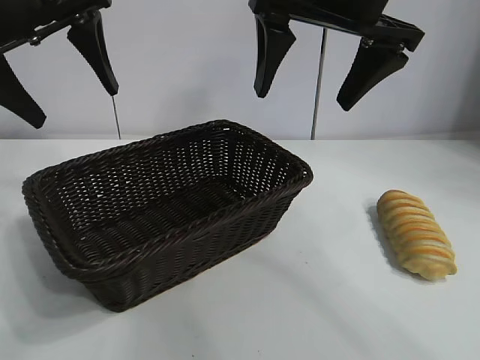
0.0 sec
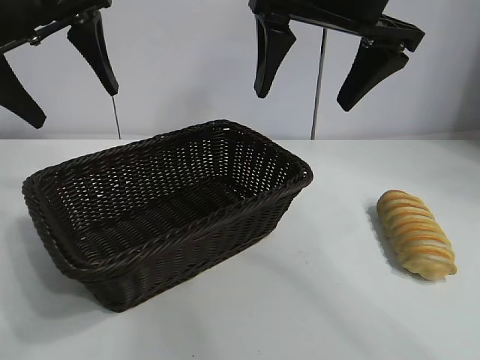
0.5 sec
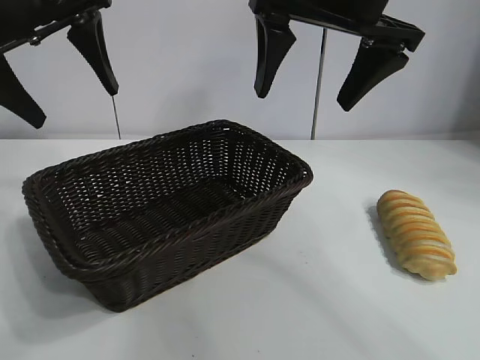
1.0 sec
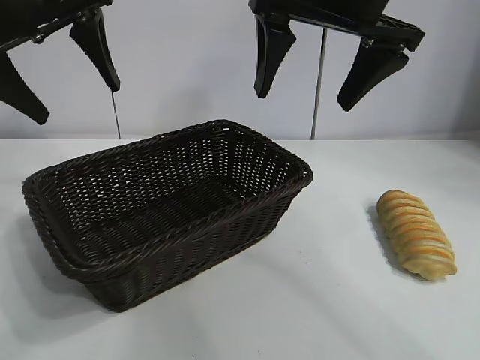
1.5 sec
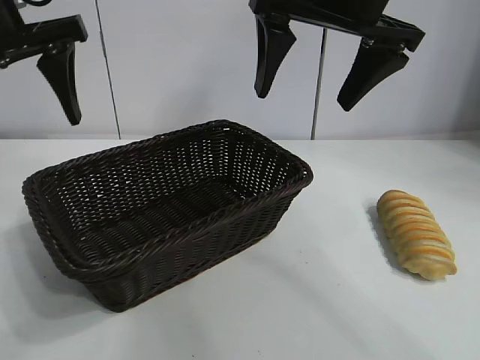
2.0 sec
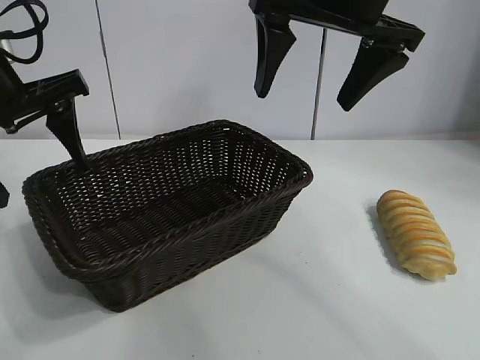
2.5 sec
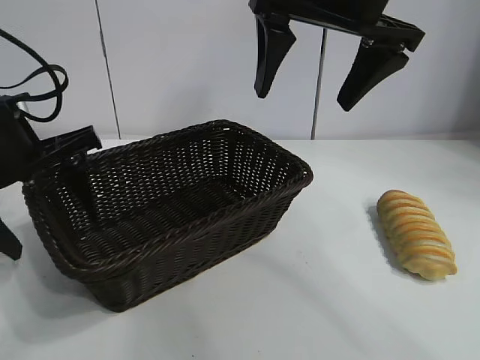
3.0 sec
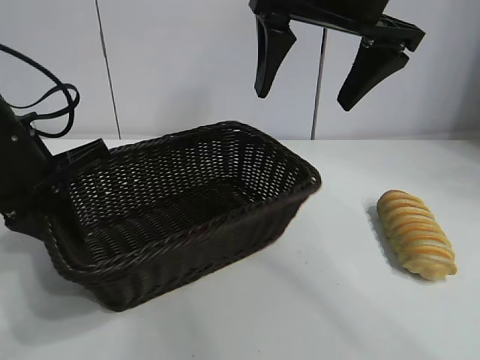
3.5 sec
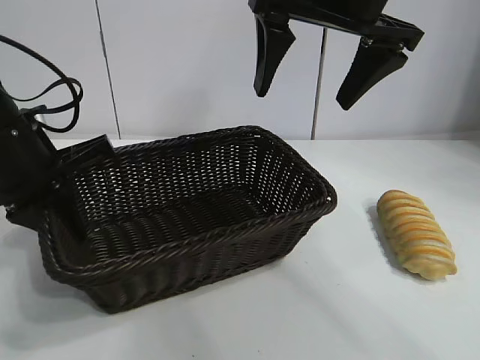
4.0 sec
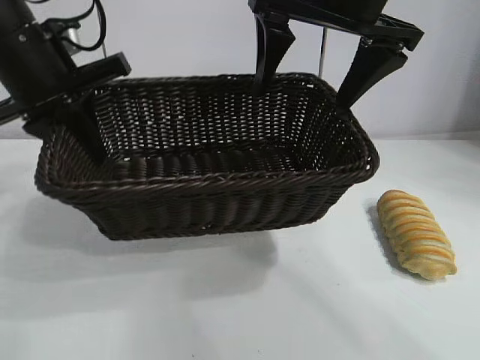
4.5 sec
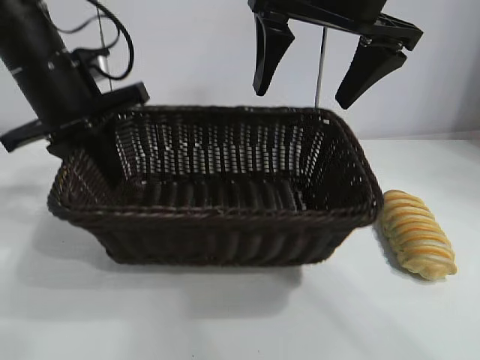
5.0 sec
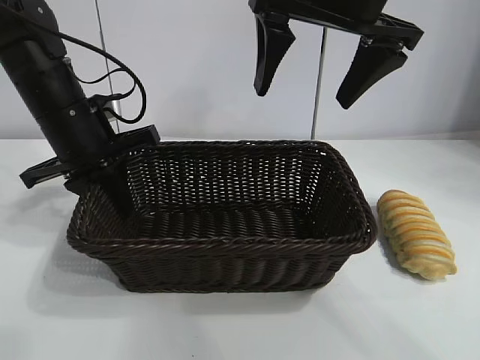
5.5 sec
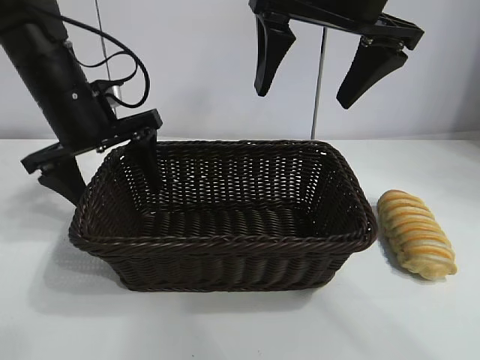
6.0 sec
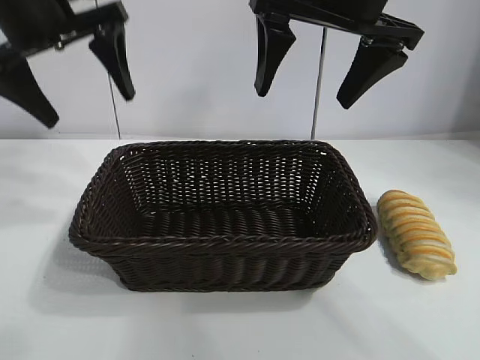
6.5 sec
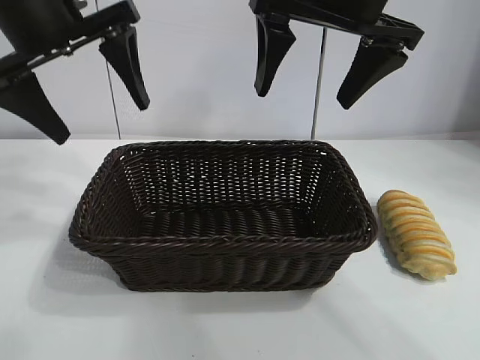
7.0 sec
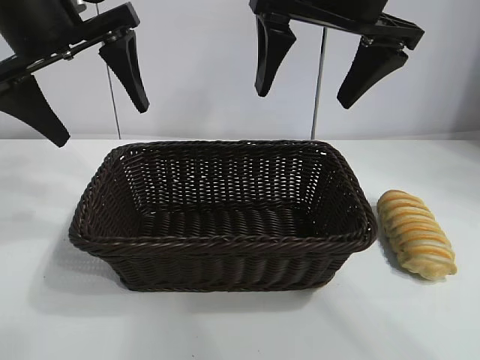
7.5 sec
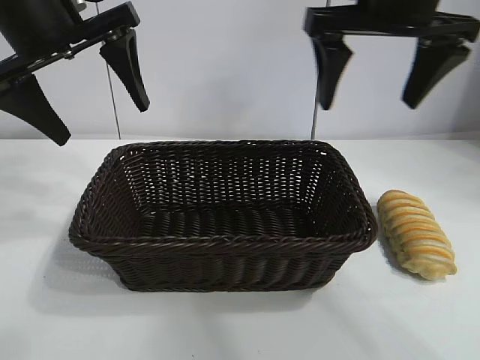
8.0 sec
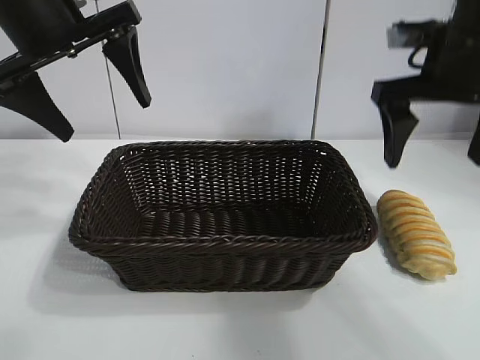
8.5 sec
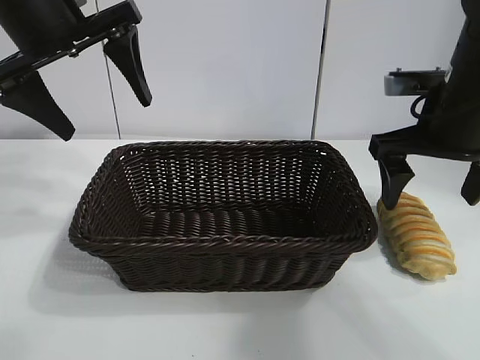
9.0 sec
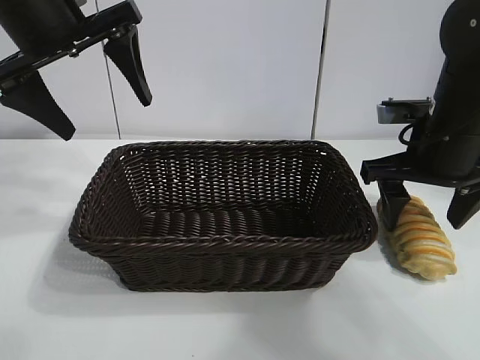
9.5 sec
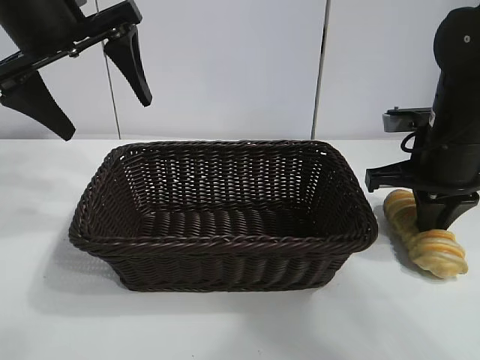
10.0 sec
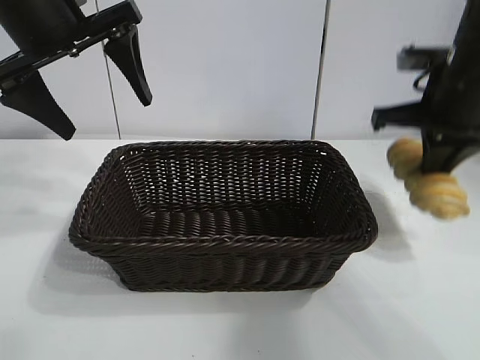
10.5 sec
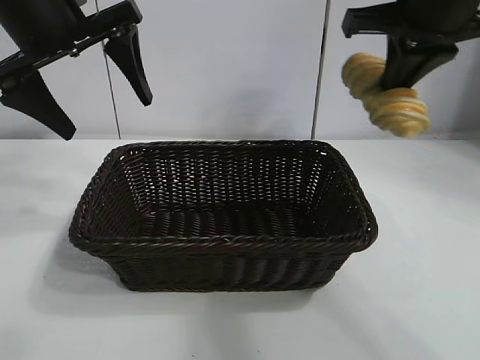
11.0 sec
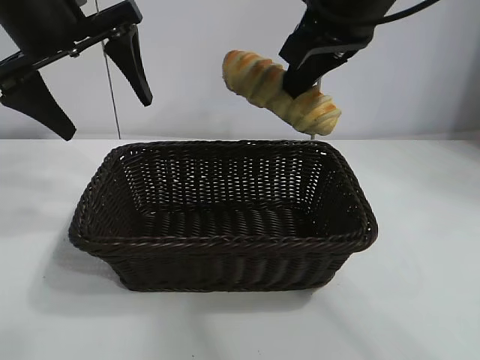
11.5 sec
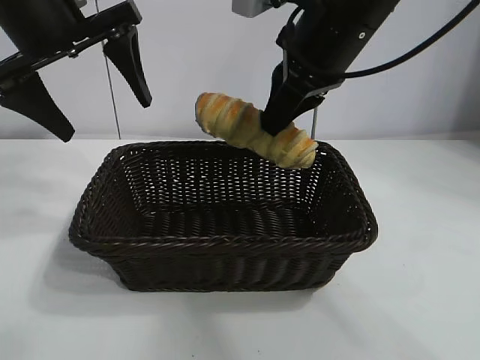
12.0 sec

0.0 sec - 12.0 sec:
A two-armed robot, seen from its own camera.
Task of the whole recording: pick up the long bread and put it into the basket.
Step, 1.5 sec - 3.5 sec: Grasp the basket with the left gripper.
Step, 4.0 sec - 5.5 sec: Place the basket in the center of the table with the left gripper.
Step, 6.5 sec - 10.0 sec: Grasp the long bread with right gripper.
